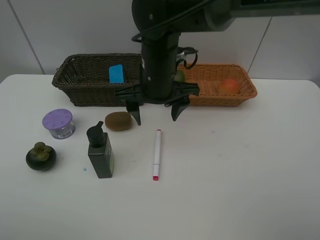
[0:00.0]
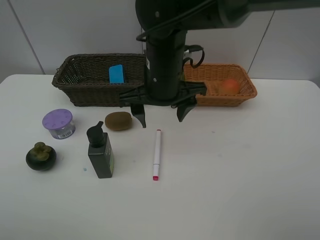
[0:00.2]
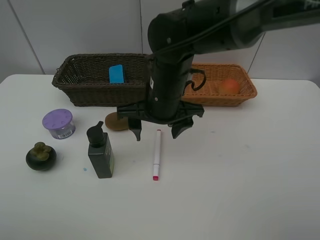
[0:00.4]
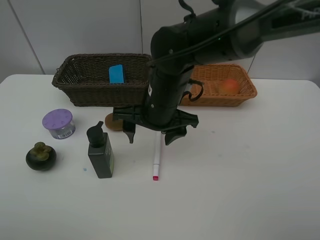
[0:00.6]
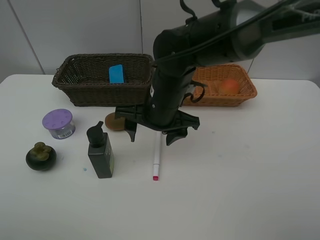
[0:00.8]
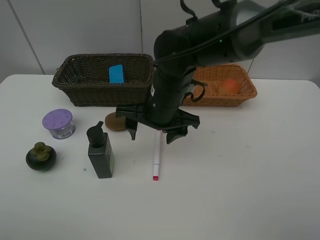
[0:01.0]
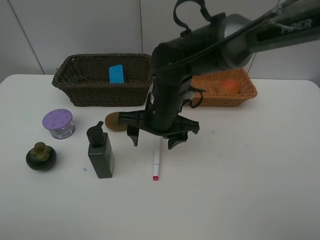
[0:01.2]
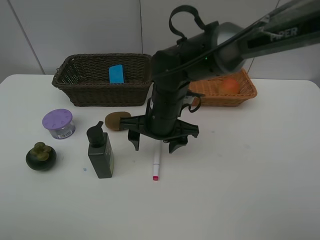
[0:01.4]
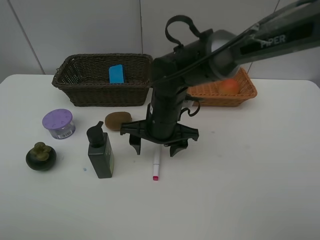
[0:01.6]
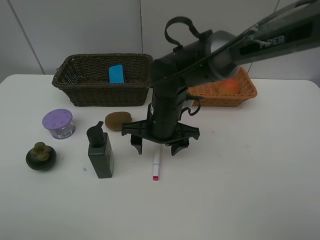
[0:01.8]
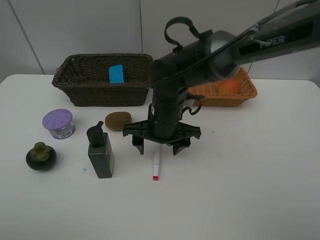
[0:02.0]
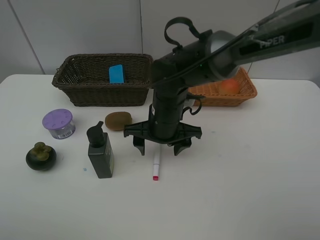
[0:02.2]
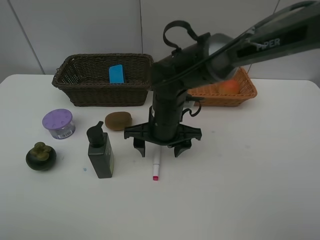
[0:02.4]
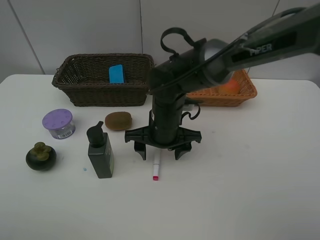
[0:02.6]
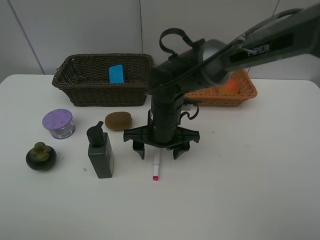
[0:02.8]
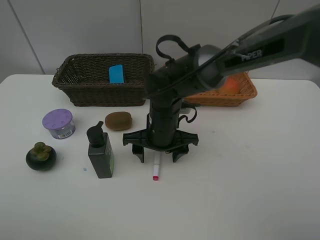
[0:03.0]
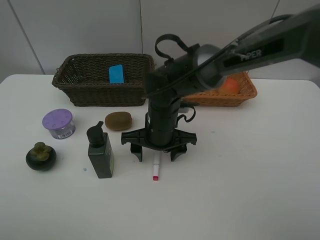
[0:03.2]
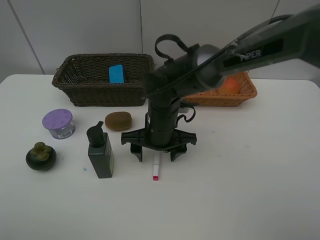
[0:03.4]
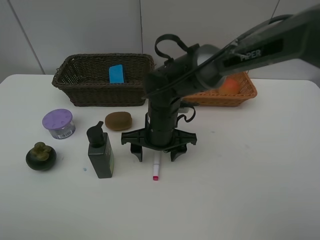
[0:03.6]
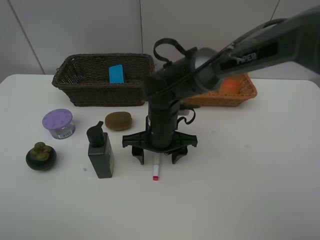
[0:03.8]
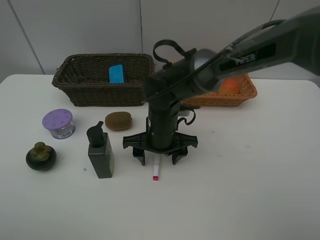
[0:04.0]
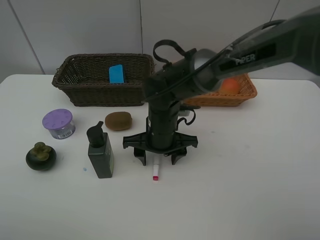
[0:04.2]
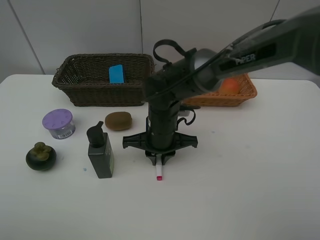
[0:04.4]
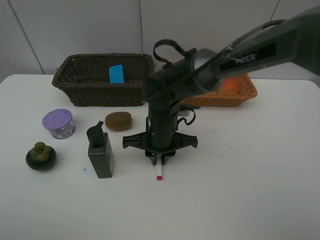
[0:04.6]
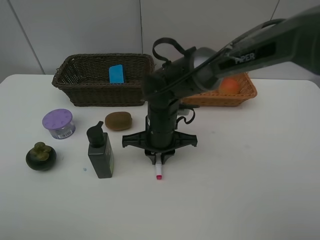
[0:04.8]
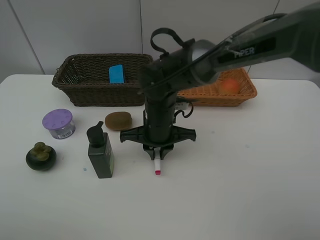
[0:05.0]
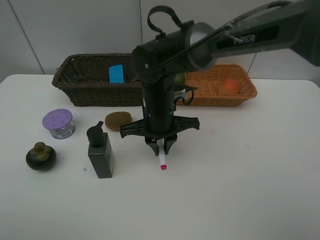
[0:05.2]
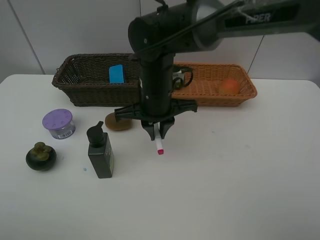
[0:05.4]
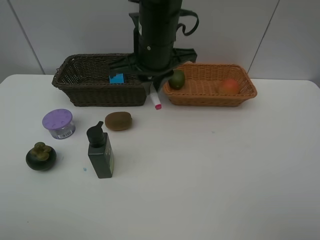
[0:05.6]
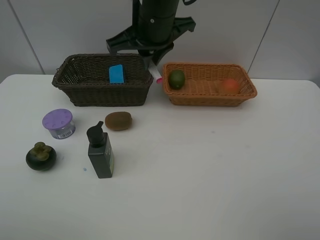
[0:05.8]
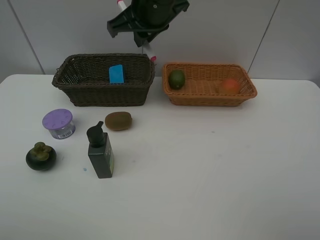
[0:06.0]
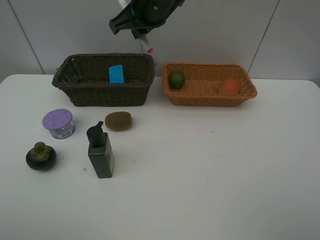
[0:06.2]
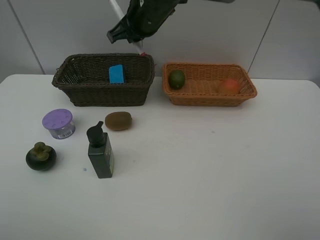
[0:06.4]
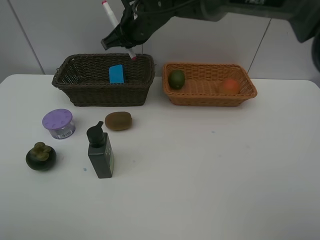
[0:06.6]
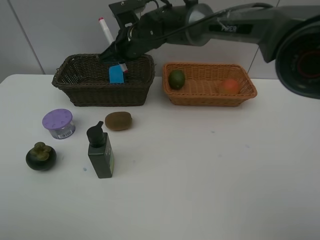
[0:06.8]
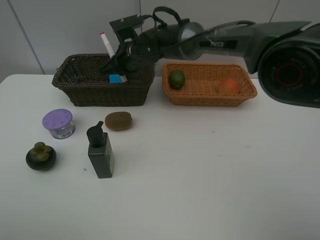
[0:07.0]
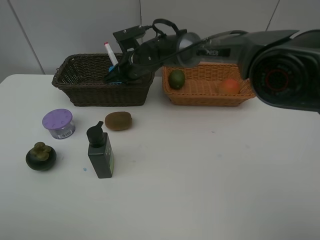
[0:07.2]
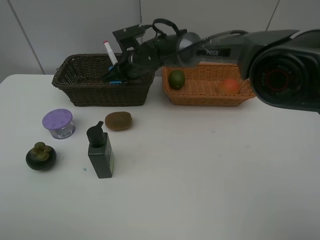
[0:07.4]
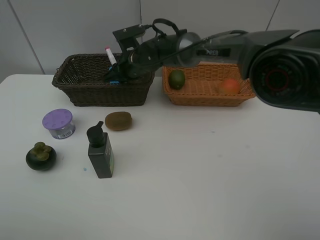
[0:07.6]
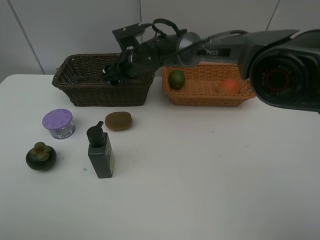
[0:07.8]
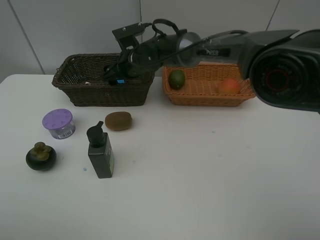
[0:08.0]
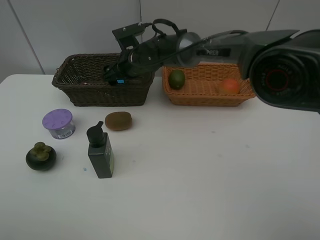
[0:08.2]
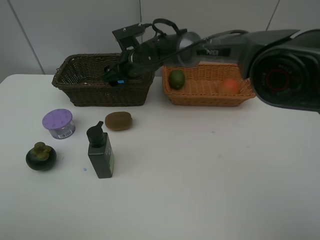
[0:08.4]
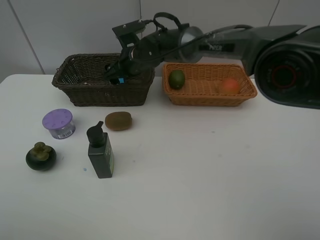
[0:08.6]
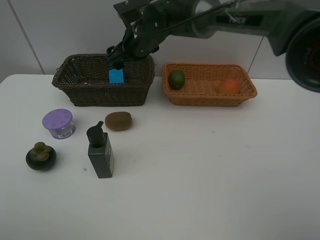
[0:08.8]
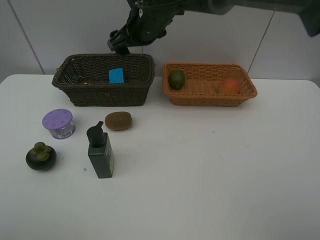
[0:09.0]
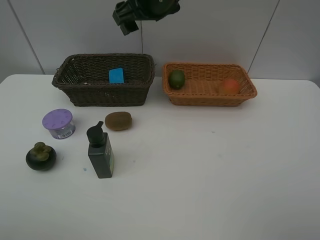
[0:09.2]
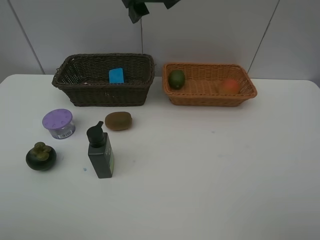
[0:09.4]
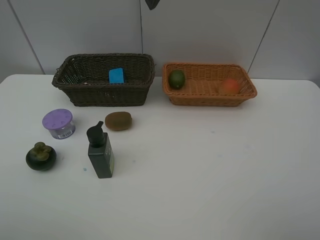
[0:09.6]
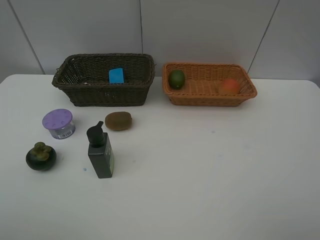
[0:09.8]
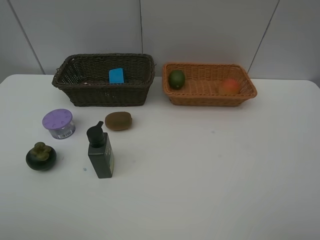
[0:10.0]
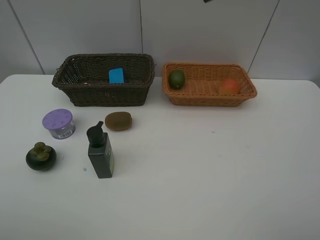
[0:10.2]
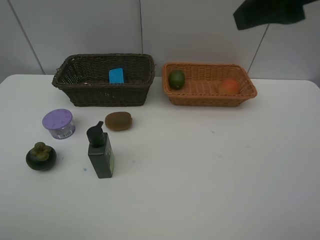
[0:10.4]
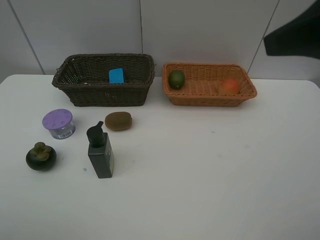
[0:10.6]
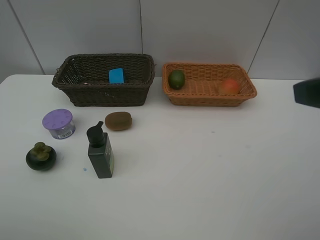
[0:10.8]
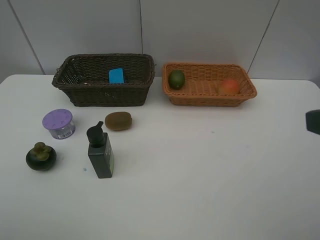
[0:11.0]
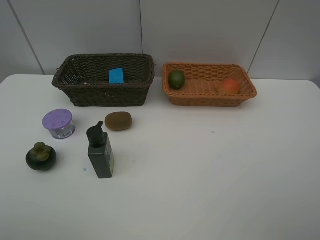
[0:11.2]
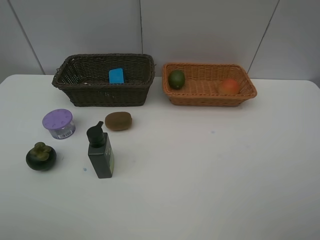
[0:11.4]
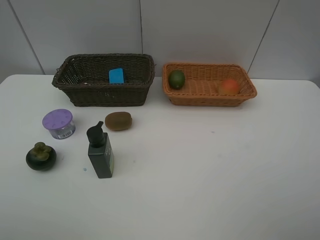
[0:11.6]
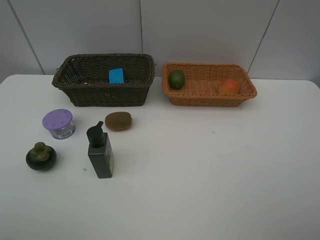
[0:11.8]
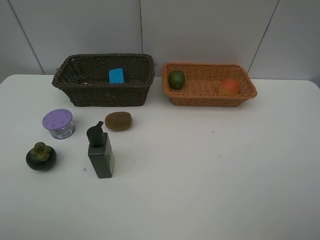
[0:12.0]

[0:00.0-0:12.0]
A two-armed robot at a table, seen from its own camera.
Task of the whole recording: Place multiple objects separately in different baskets.
Step, 0:00.0 to 0:05.0: Pick up the red marker with right gripper.
Step, 0:05.2 to 0:08.4: Place the red marker in the dark basket with right gripper.
0:00.0 to 0:01.6: The right gripper is displaced downward by approximately 10 cm.
0:01.6 to 0:03.0: The grippers make only small movements.
0:03.0 to 0:04.4: The right gripper closes.
0:04.4 to 0:06.0: The right gripper travels upward by roughly 20 cm.
0:06.0 to 0:07.6: The right gripper travels downward and forward by about 20 cm, and opens its fingers.
0:07.6 to 0:09.0: The right gripper goes approximately 10 cm upward, and opens up.
0:09.0 to 0:10.4: The right gripper shifts some 35 cm backward, to the right and upward.
0:10.4 to 0:12.0: The right gripper shifts approximately 20 cm backward, downward and to the right.

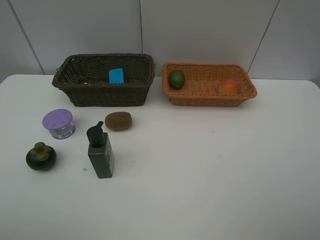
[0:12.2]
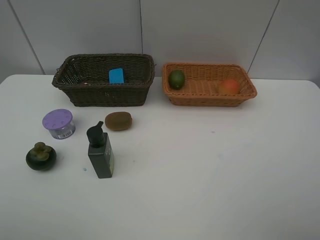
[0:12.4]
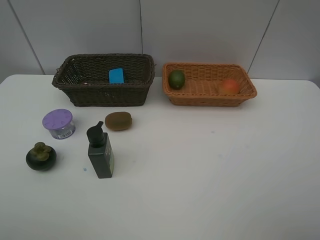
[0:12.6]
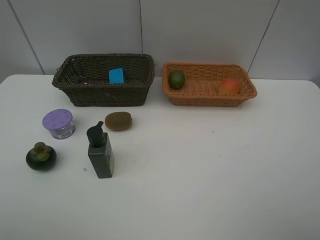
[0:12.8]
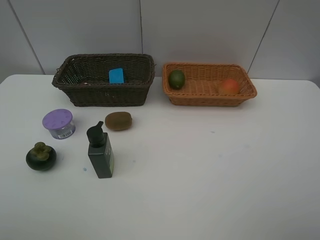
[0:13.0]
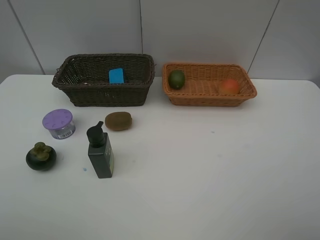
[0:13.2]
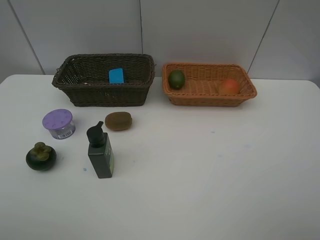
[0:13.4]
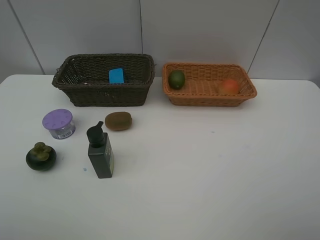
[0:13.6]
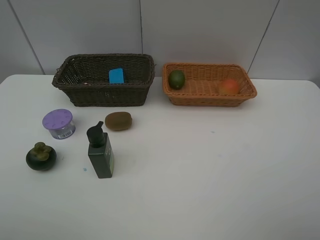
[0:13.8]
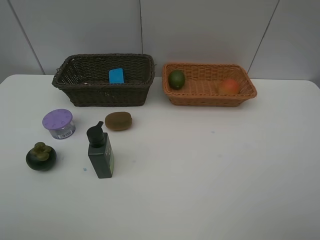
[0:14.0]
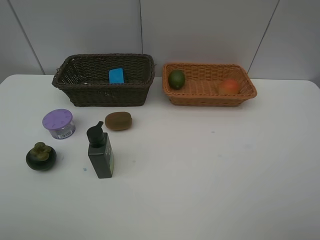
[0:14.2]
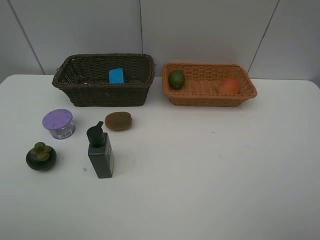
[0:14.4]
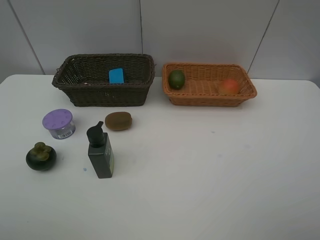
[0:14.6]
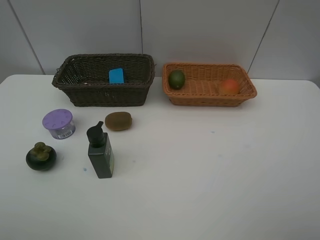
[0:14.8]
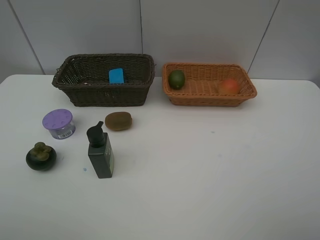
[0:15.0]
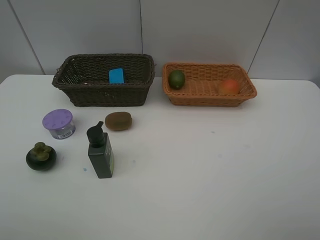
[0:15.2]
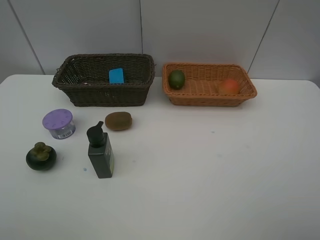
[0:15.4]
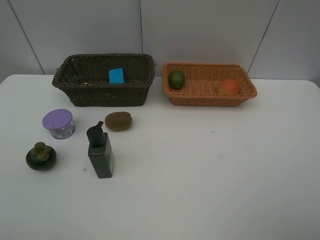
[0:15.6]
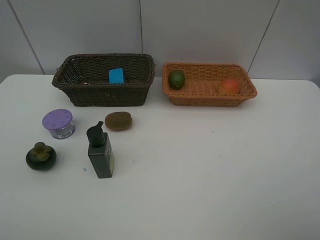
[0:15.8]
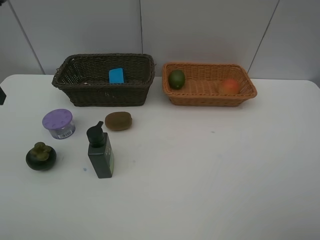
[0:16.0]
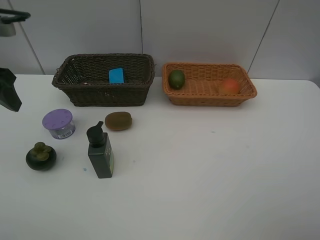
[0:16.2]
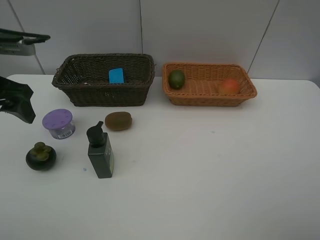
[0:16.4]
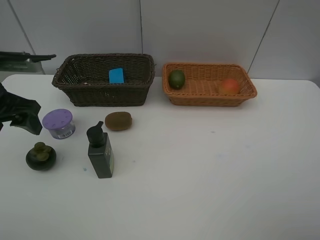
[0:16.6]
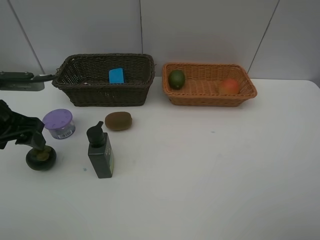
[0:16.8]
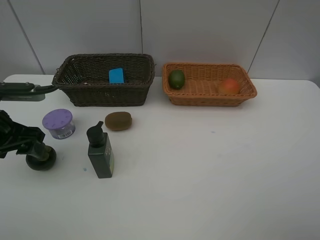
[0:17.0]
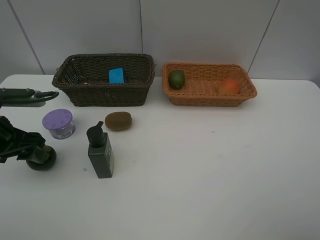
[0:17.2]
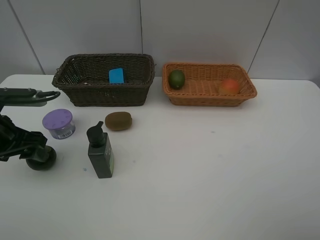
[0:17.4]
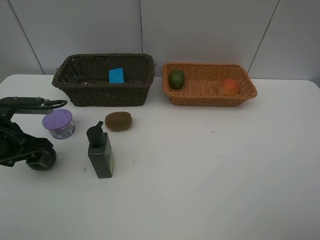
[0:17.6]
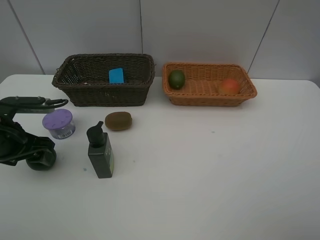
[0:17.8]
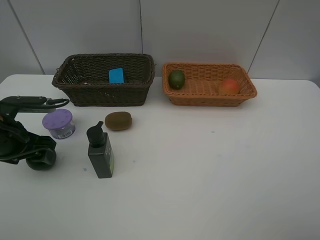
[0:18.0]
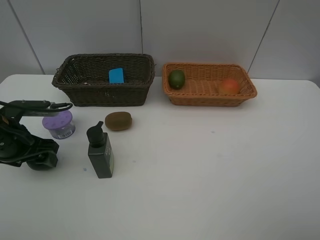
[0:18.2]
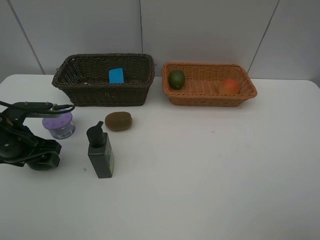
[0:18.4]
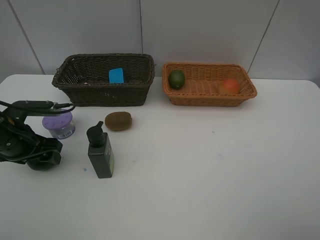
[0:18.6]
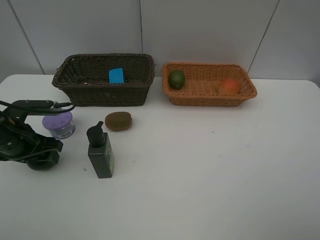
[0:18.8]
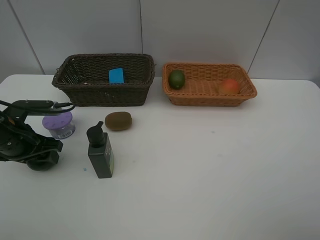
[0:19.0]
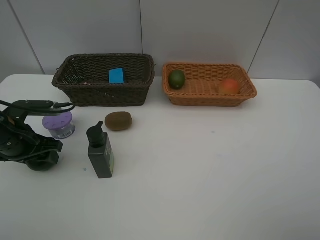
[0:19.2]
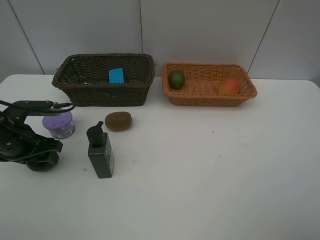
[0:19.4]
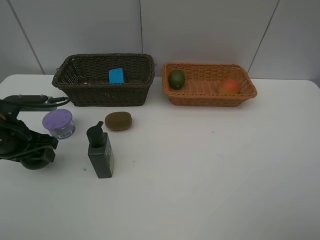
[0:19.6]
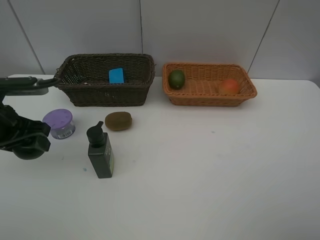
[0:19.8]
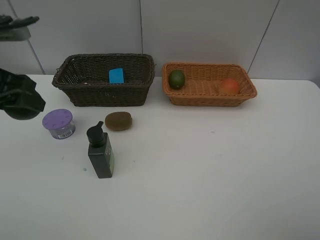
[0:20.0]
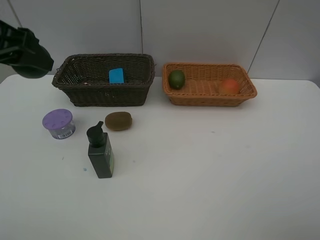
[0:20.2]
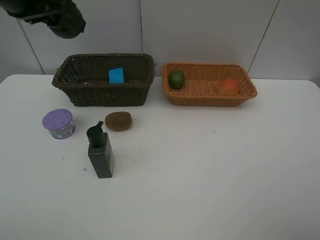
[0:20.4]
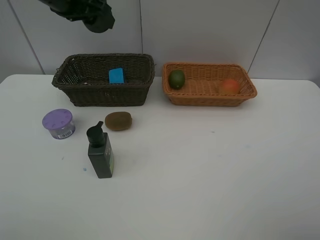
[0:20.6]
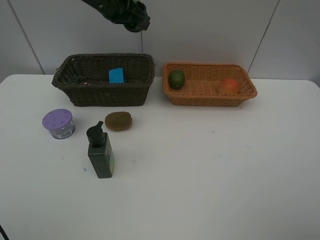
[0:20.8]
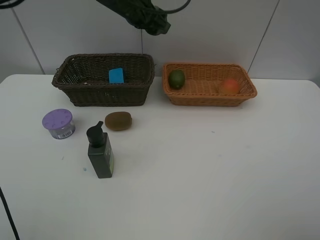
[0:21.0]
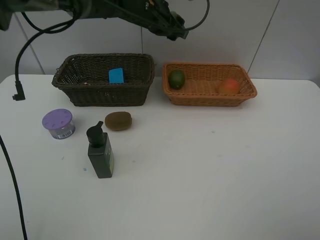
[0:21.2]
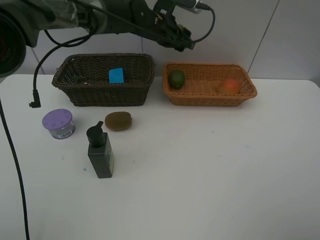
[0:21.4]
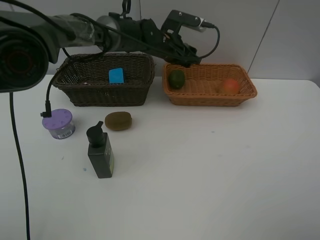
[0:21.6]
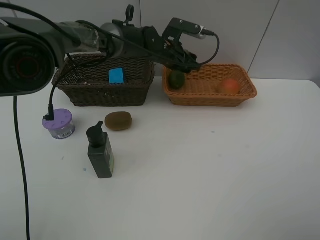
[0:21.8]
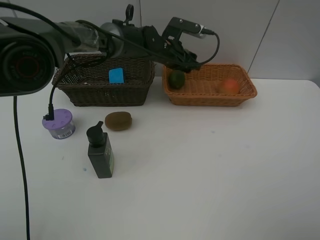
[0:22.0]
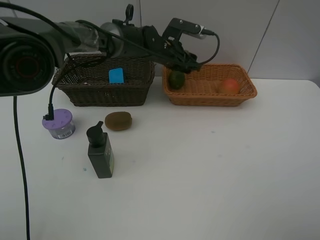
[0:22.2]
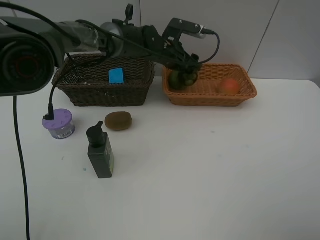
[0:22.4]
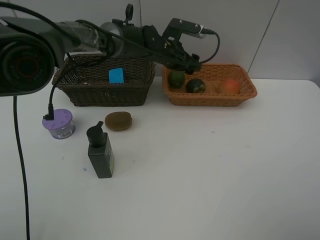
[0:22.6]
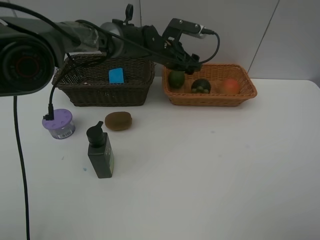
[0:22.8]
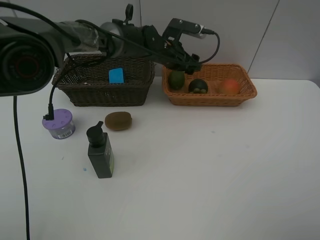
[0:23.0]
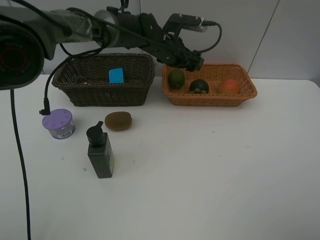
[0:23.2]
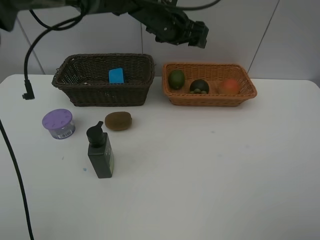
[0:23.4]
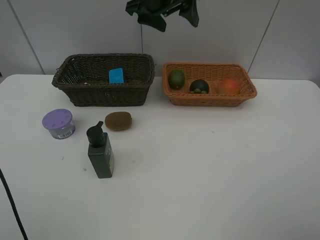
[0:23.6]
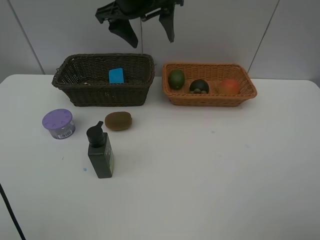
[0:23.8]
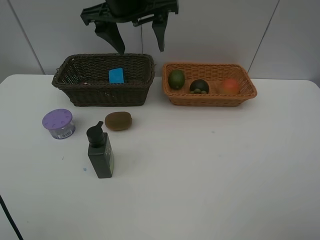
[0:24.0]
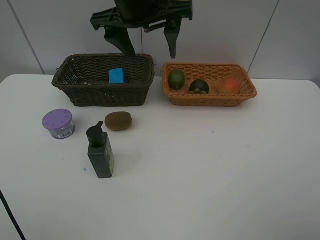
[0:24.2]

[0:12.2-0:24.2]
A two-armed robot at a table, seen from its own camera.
Task of the whole recording: Place multiple objects separately in different baskets.
Step, 0:12.2 to 0:19.6: Pick up the mangosteen with left gripper.
Step, 0:19.8 to 0:22.6: Place the mangosteen in the light basket with left gripper.
0:15.2 to 0:16.6: The left gripper moves forward and downward, some 25 cm.
0:16.6 to 0:18.2: The left gripper travels downward by about 10 cm.
0:18.2 to 0:19.8: The left gripper goes approximately 5 cm upward.
0:19.8 to 0:21.2: The left gripper moves to the right and forward, some 35 cm.
0:21.2 to 0:22.6: The left gripper is displaced downward by about 10 cm.
0:22.6 to 0:24.2: The left gripper is displaced upward and backward by roughly 25 cm.
